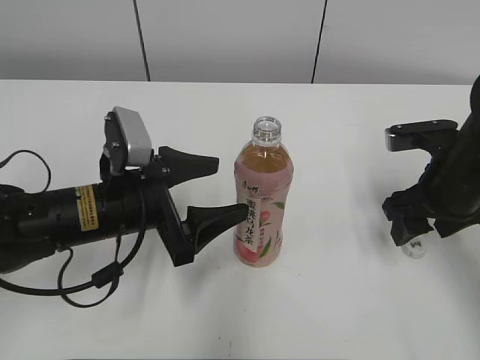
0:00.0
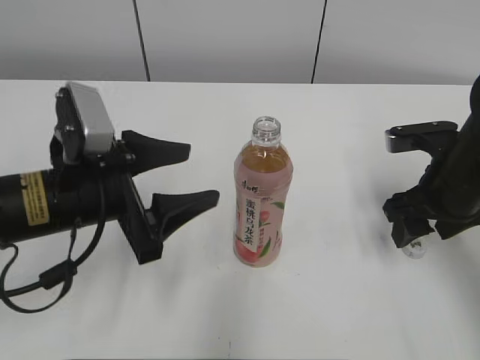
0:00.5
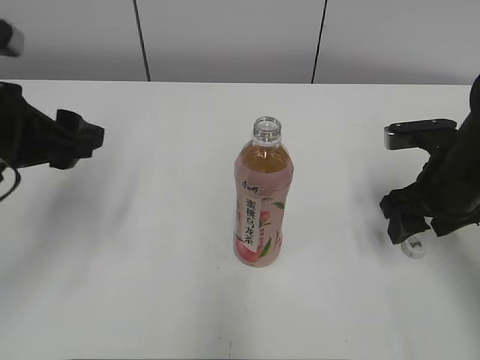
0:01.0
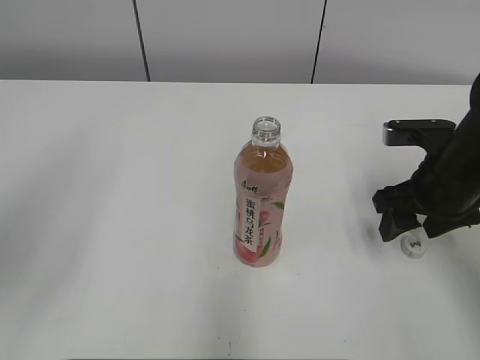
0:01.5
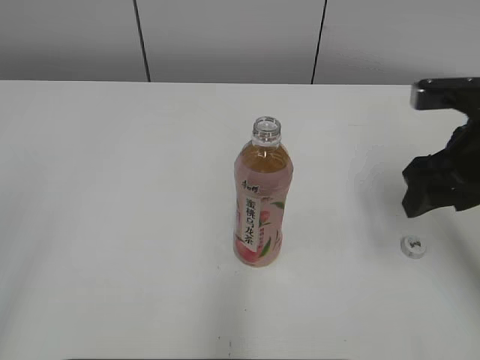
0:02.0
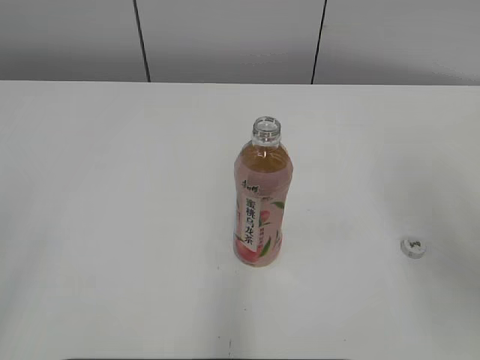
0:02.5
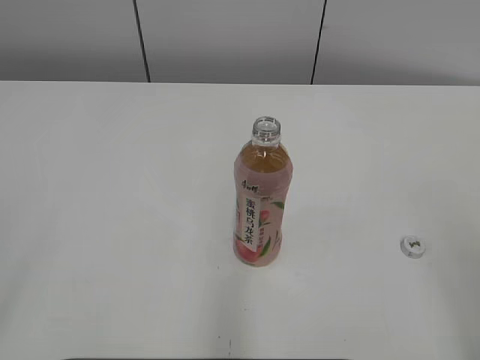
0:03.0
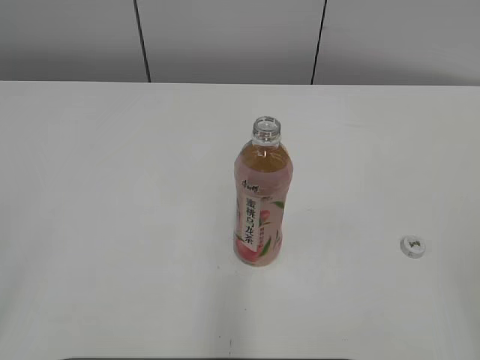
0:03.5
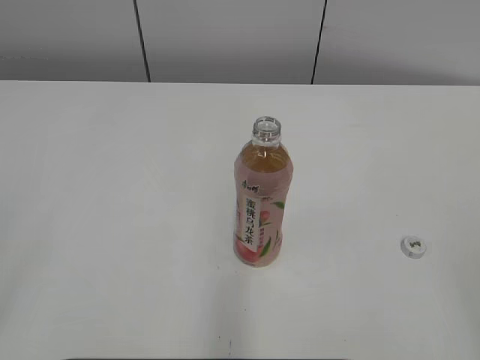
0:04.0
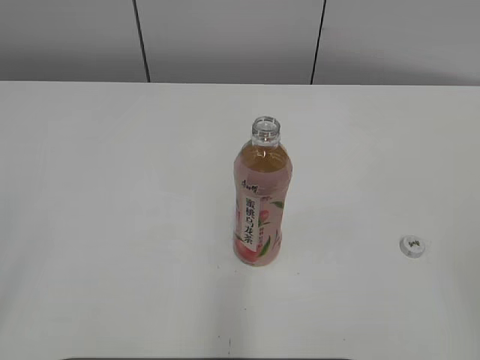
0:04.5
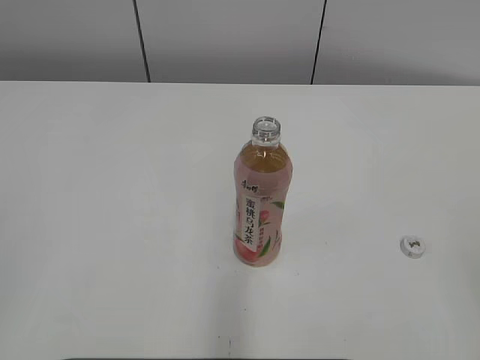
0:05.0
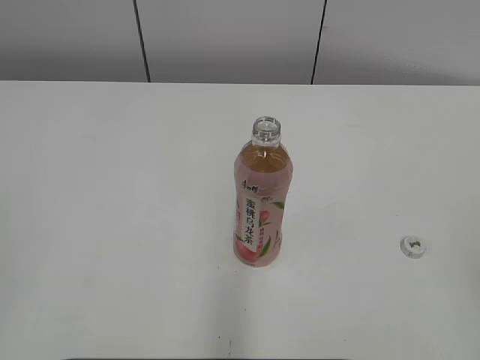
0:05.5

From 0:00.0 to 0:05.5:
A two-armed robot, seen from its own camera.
From 0:00.0 to 0:02.0: The right gripper goes about 5 cm upward. The left gripper moves backward, upward and to the left, some 35 cm.
From 0:02.0 to 0:03.5: The right gripper travels backward by approximately 30 cm.
